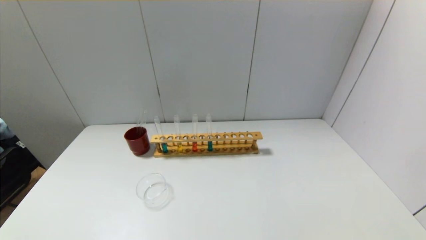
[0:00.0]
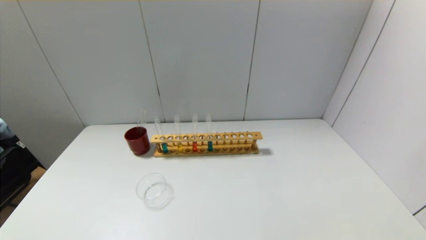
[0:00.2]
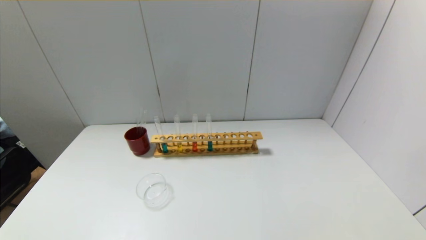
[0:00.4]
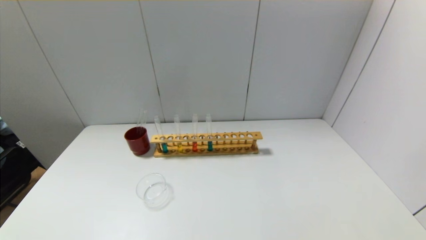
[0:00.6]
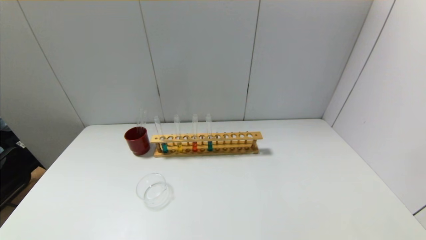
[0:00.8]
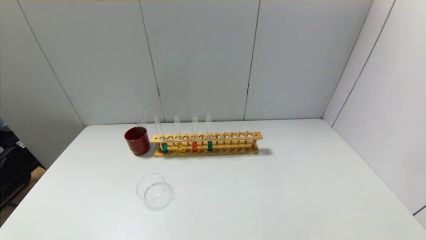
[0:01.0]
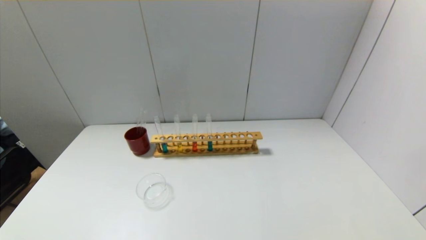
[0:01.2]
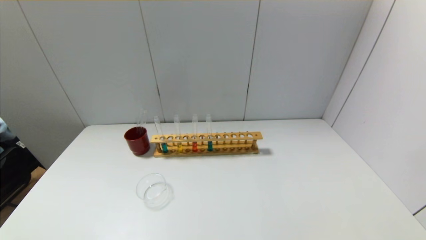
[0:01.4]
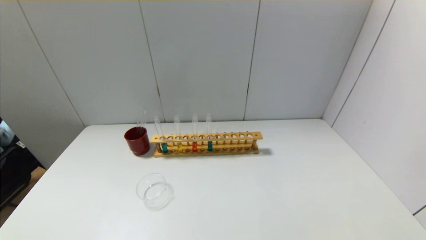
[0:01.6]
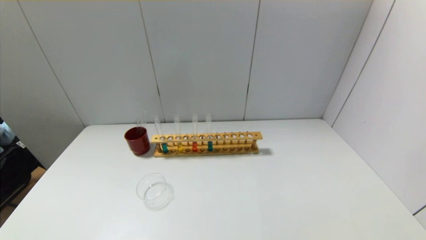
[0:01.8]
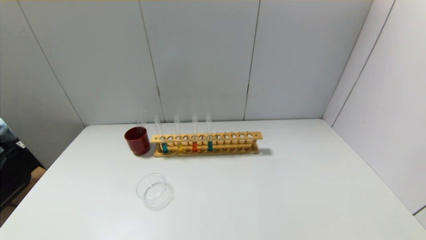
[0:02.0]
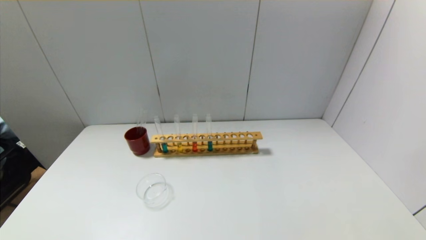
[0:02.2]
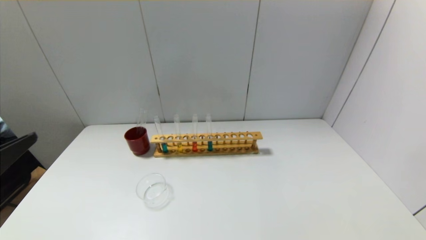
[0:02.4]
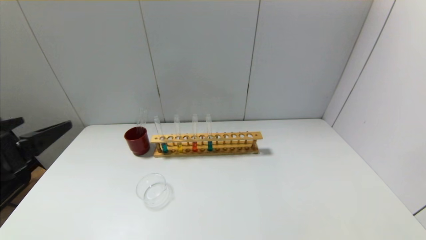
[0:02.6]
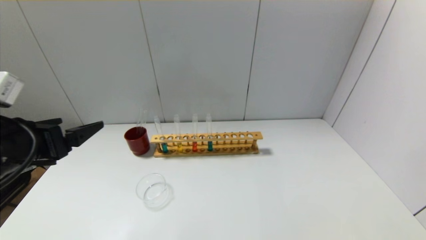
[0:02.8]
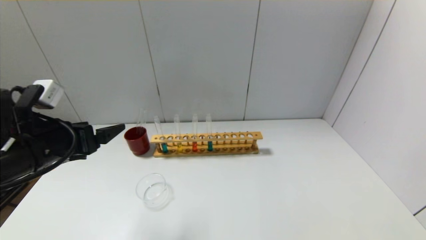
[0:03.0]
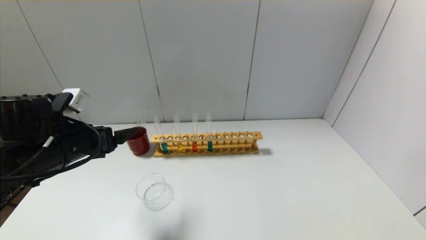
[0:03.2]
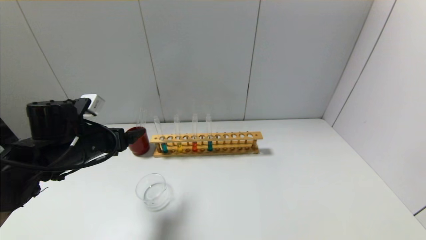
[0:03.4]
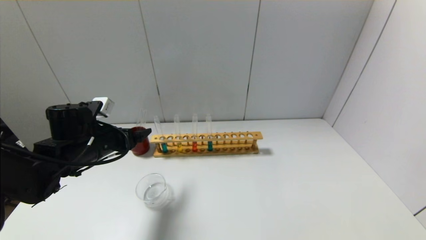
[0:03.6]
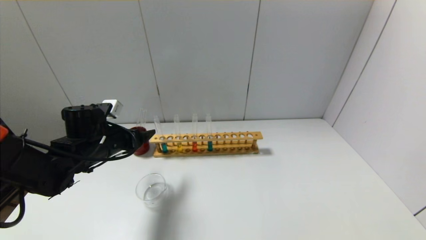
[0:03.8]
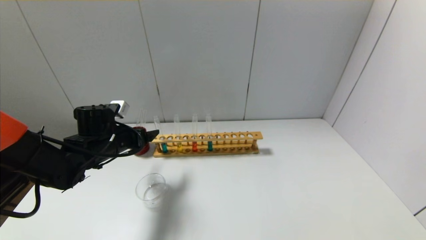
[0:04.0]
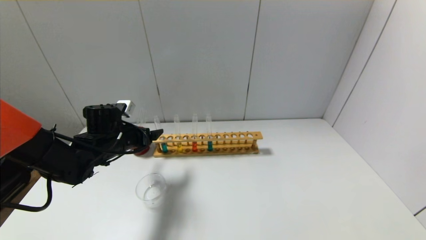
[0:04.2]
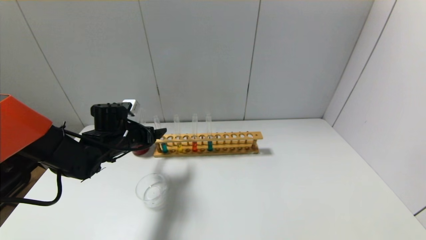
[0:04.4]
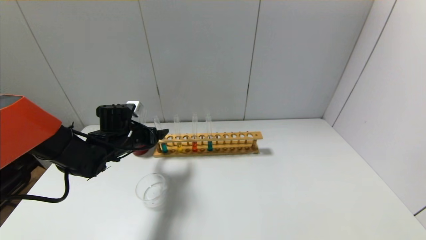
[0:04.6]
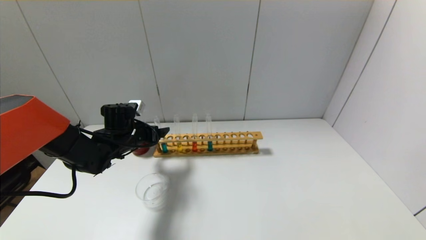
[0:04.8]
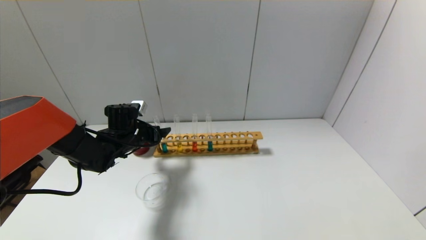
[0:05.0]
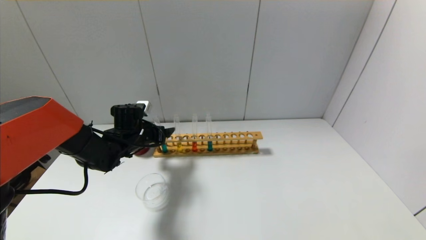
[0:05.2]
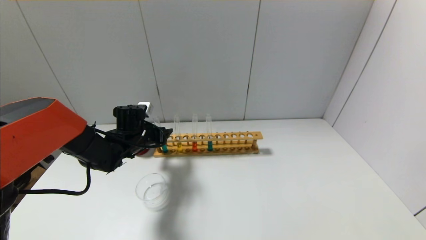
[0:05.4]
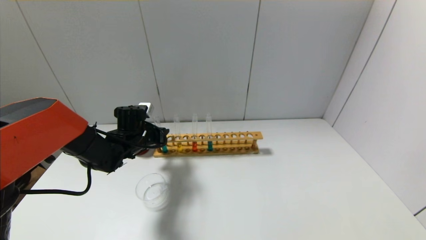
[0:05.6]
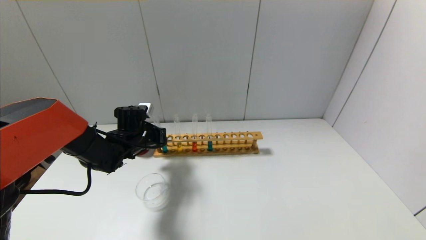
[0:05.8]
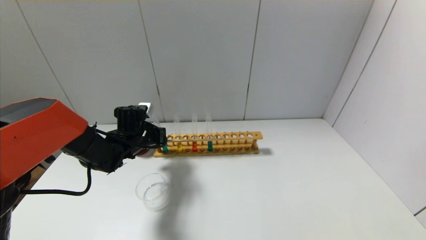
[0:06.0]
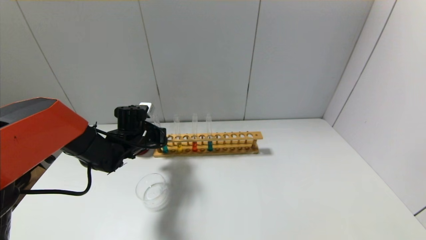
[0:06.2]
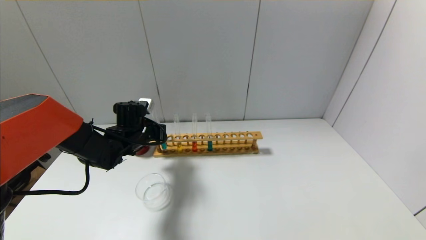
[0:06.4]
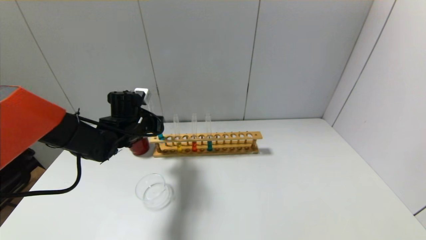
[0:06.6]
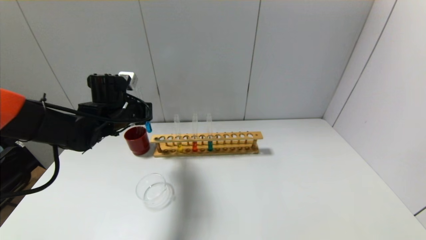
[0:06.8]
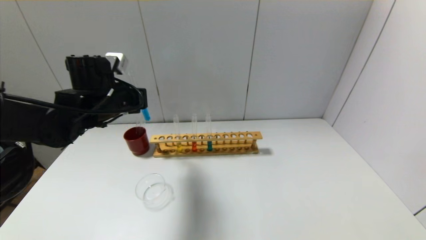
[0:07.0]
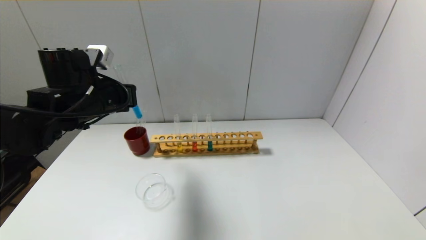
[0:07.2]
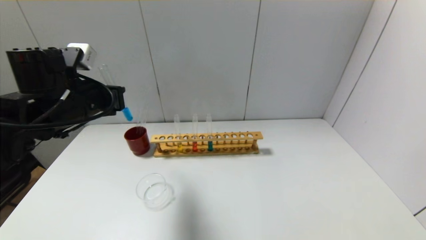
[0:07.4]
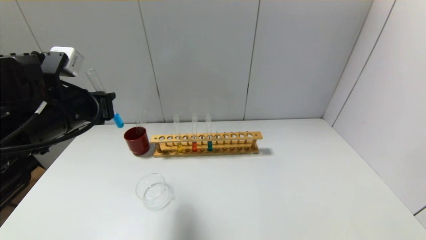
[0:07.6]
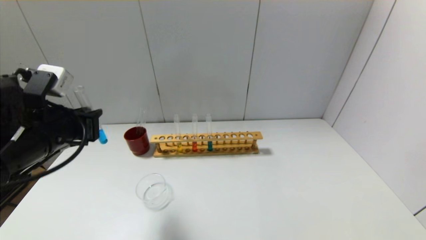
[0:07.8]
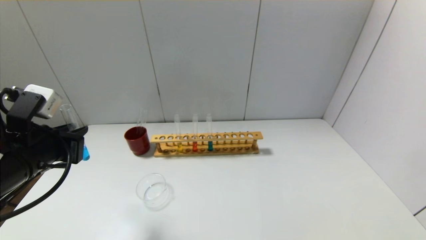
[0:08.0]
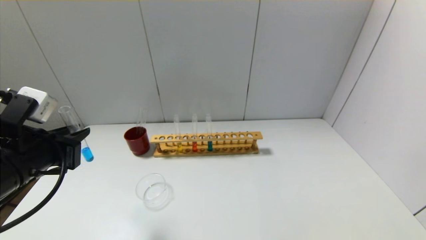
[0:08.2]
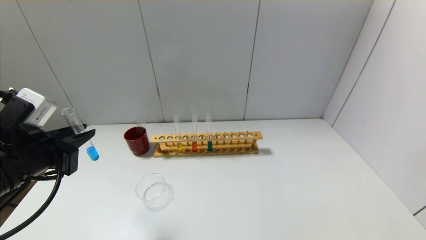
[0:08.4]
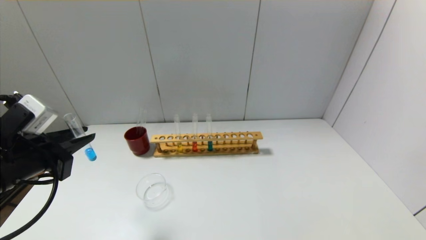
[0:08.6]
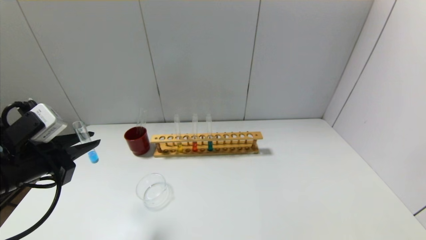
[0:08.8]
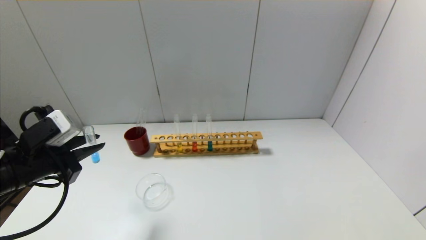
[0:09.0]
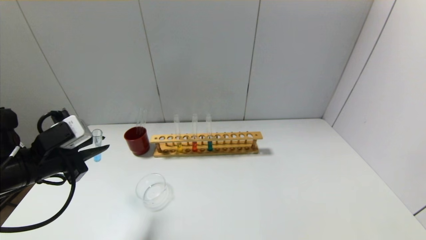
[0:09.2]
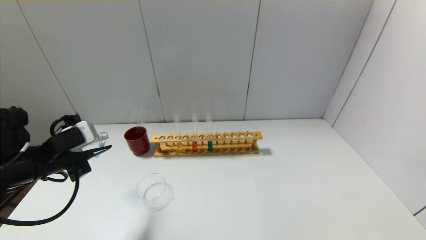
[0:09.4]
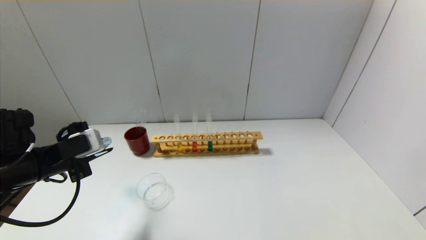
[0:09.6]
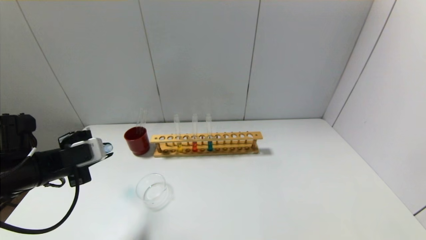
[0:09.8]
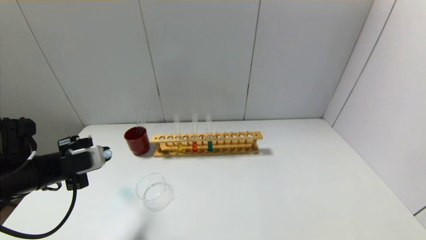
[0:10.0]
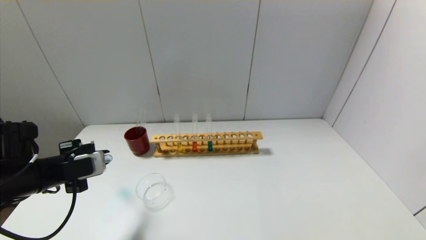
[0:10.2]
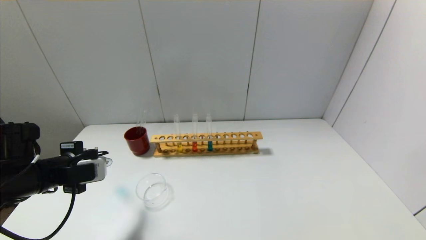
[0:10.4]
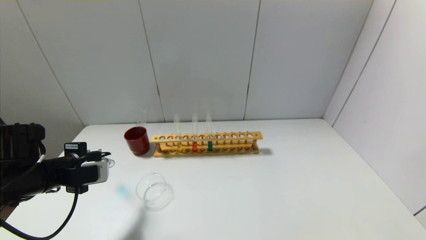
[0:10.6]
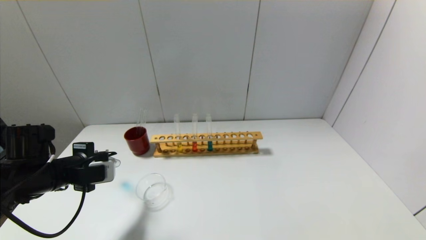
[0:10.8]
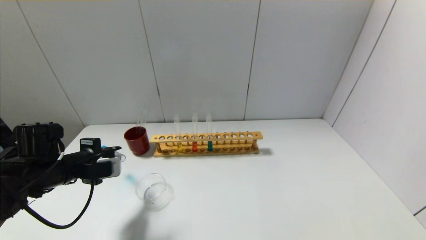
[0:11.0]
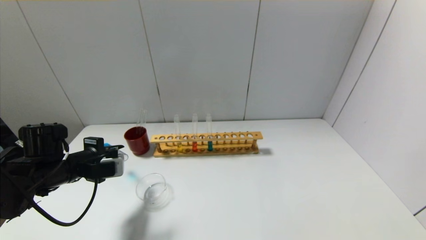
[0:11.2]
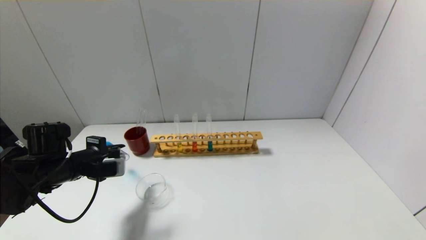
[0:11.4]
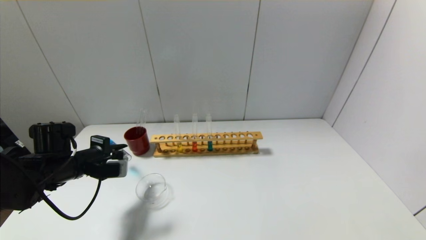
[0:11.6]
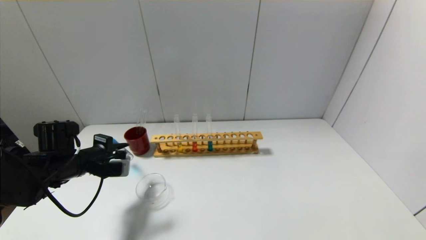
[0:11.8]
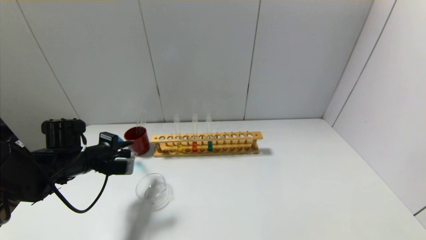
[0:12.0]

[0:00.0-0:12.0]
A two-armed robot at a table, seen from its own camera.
Step, 0:00.0 to 0:05.8: Grasp the blue reagent with the left gripper.
0:01.6 to 0:03.0: The left gripper travels forward by approximately 25 cm.
0:03.0 to 0:04.4: The left gripper heads forward and downward, covering roughly 20 cm.
0:04.4 to 0:06.0: The left gripper closes.
0:06.0 to 0:07.6: The left gripper goes approximately 20 cm upward and backward.
0:07.6 to 0:09.0: The left gripper moves downward, to the left and backward, roughly 10 cm.
0:09.0 to 0:10.4: The left gripper shifts by some 5 cm.
0:10.4 to 0:12.0: The left gripper moves forward, approximately 10 cm.

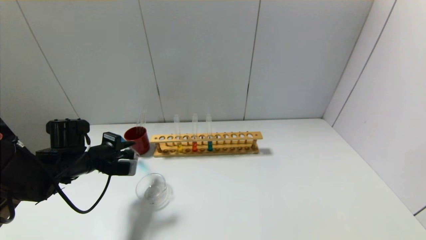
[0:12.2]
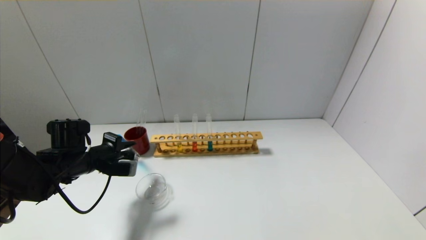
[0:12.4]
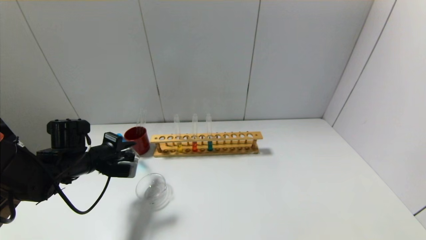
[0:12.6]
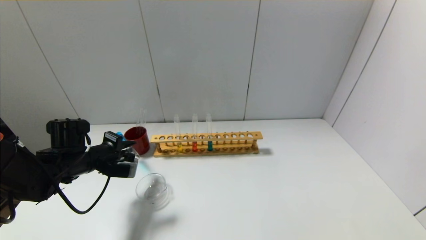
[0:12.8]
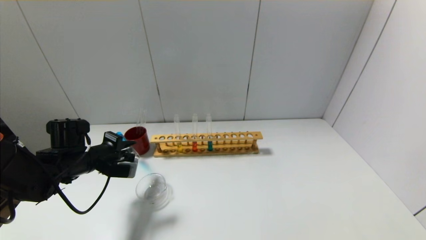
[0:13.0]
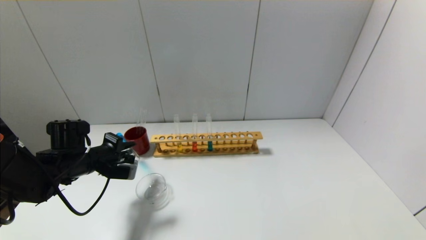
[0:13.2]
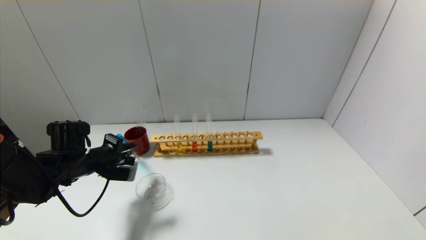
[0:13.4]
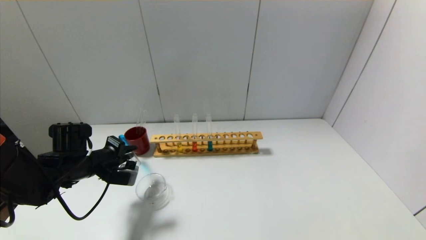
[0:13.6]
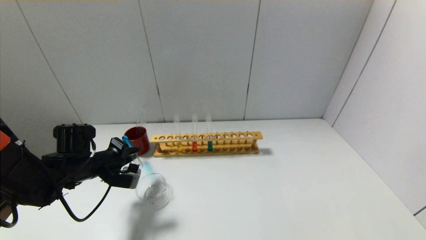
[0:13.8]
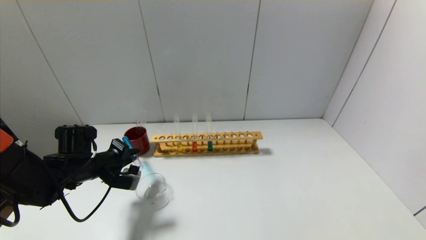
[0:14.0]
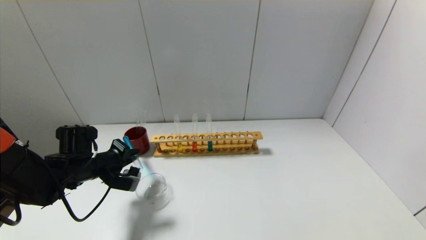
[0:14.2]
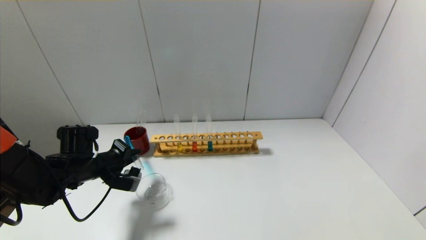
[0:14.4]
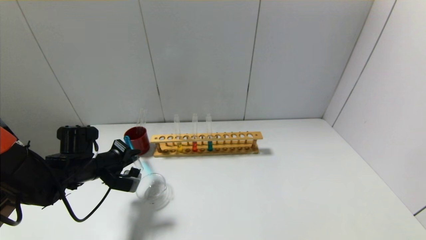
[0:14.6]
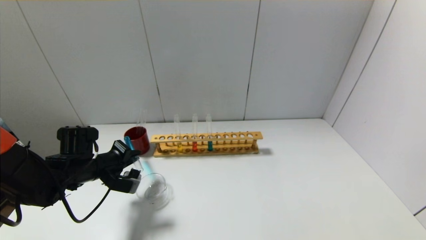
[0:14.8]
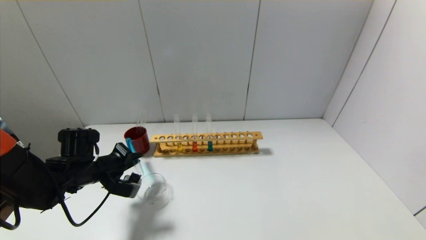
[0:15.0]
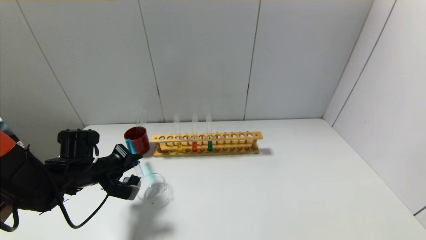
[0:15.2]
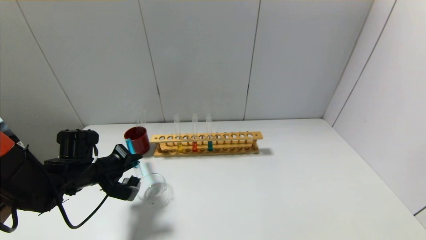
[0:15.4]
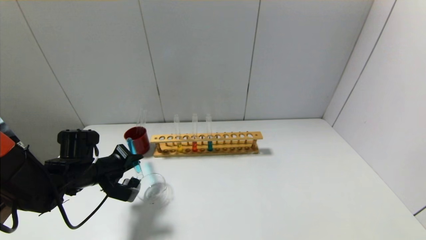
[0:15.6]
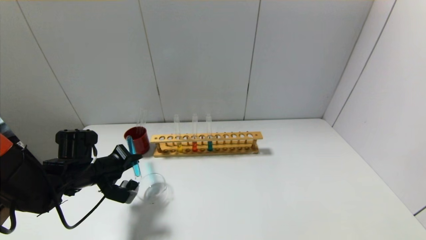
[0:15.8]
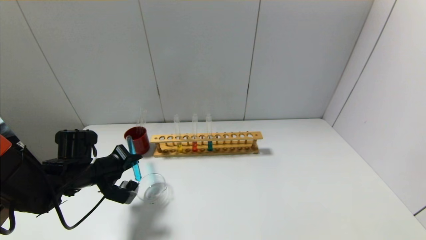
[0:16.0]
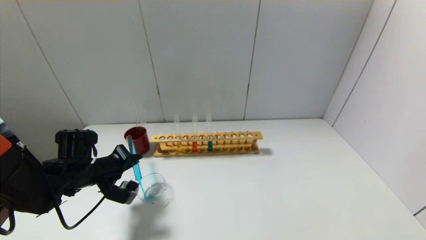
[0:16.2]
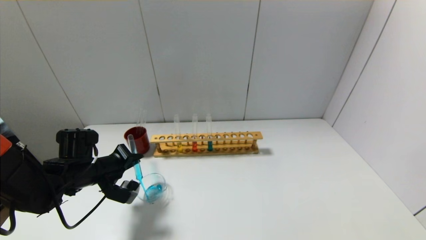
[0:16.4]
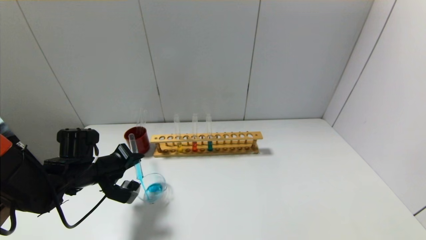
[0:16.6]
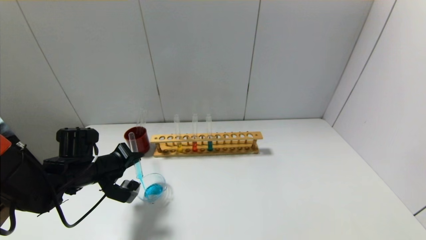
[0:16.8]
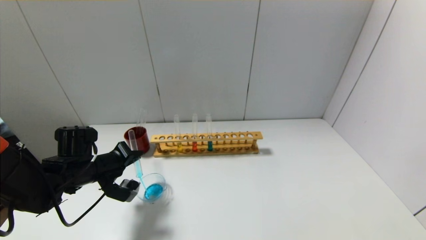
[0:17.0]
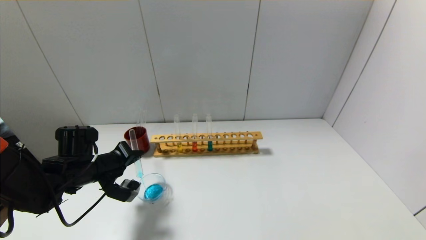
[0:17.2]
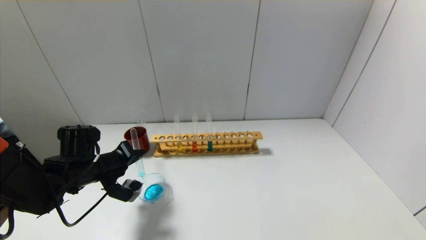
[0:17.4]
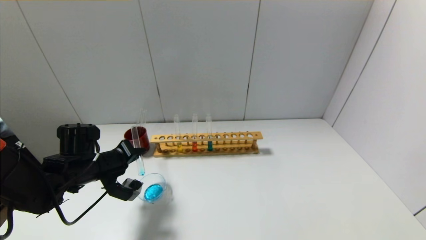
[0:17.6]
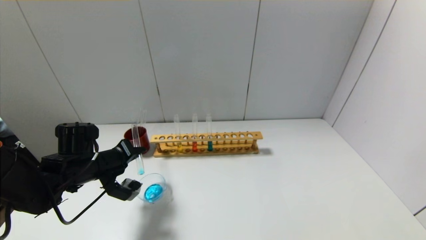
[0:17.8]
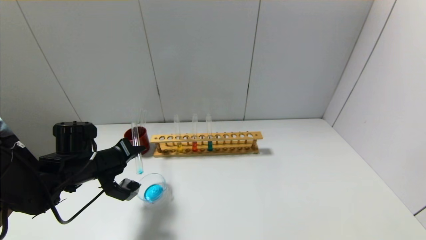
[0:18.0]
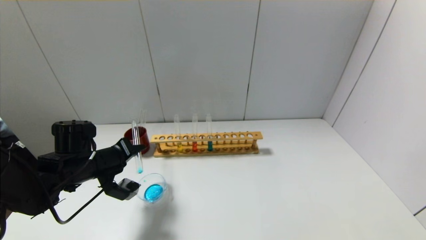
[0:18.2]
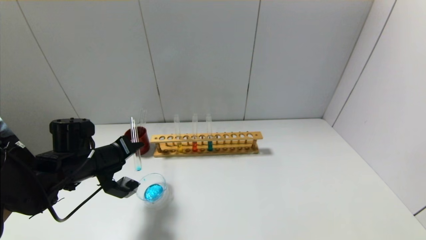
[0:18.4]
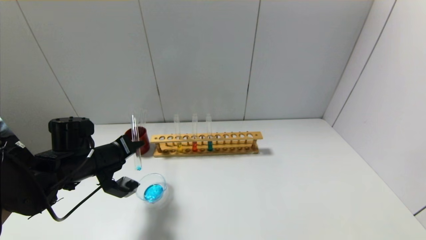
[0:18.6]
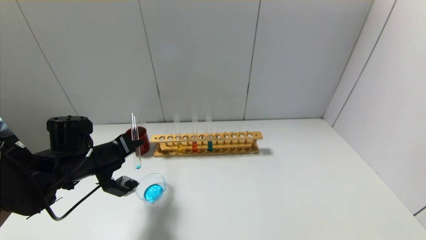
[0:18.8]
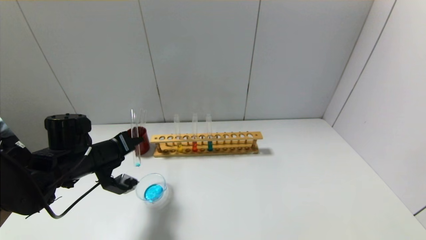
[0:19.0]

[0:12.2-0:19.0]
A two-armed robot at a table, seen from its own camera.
0:12.2 to 0:15.0: There are only small adjustments of the grippers.
0:15.0 to 0:17.6: The grippers stay close to where they were, moving slightly.
0:17.6 to 0:19.0: The grippers make only small movements.
